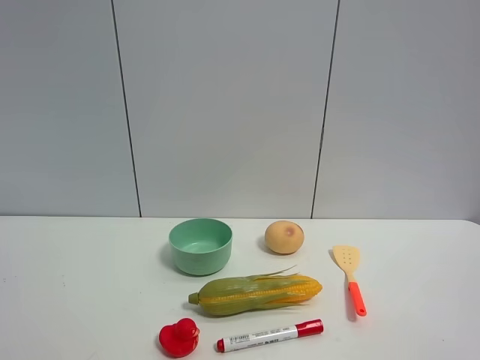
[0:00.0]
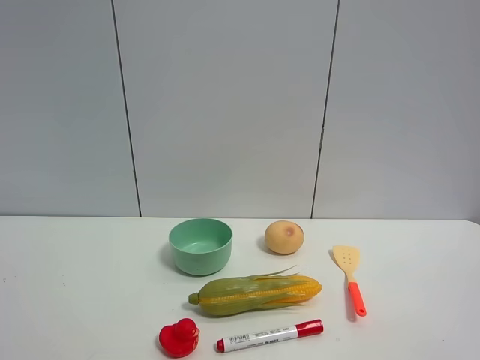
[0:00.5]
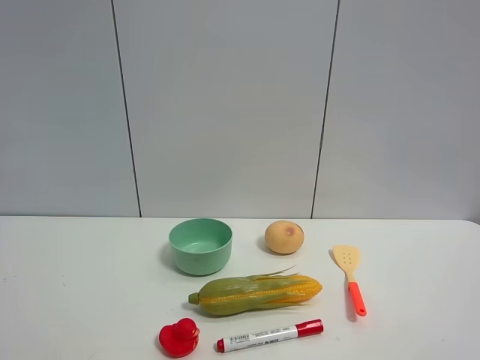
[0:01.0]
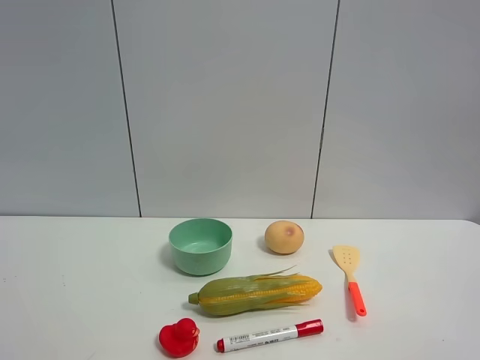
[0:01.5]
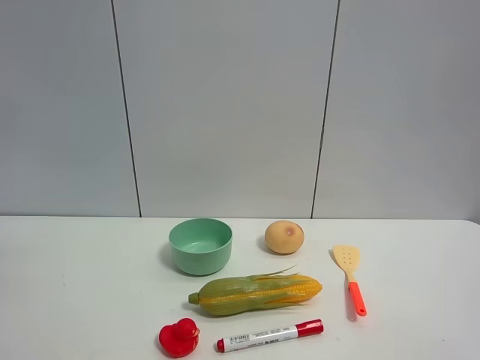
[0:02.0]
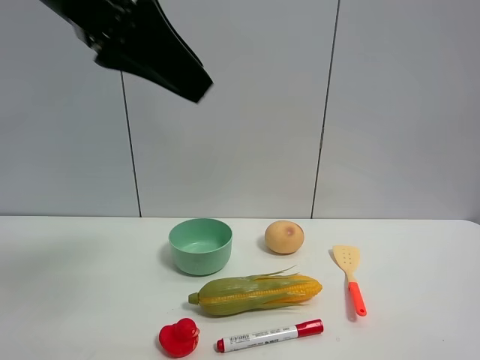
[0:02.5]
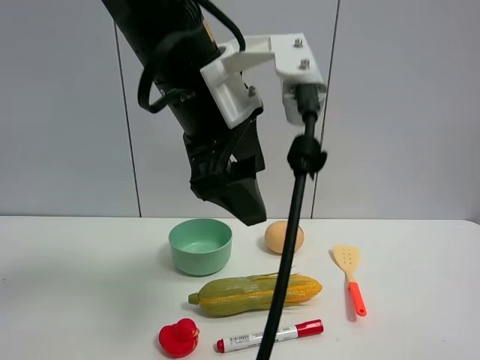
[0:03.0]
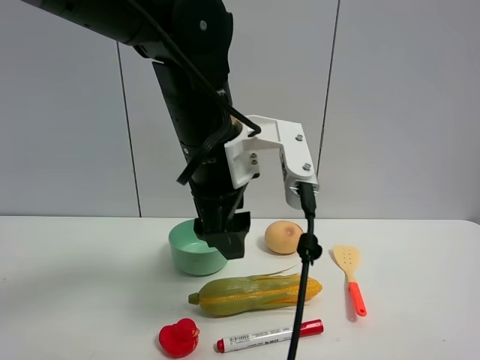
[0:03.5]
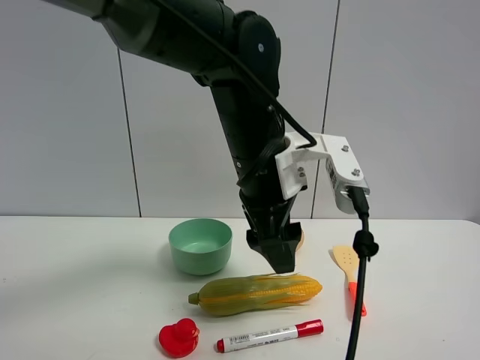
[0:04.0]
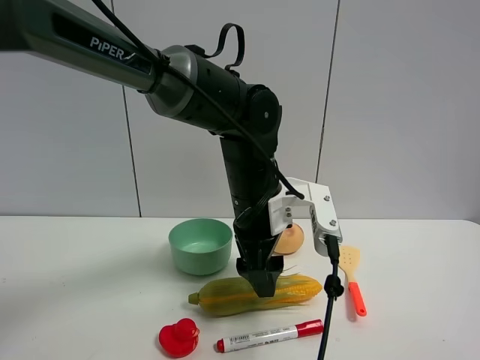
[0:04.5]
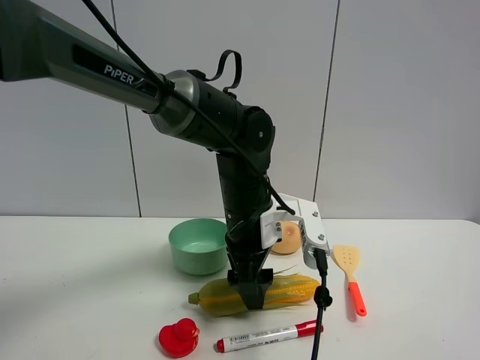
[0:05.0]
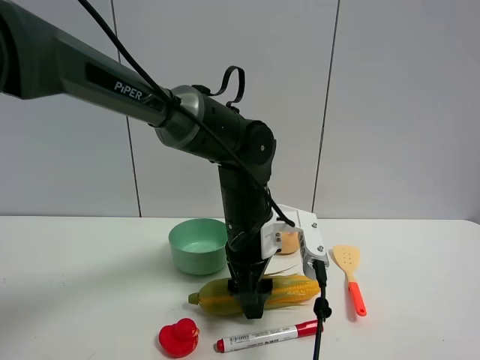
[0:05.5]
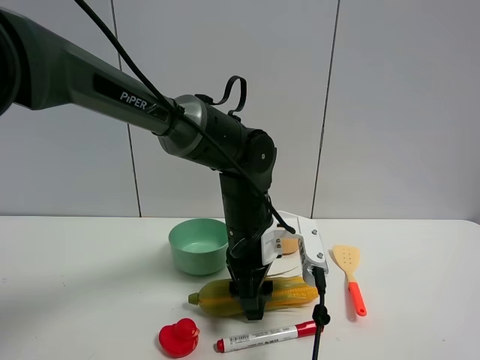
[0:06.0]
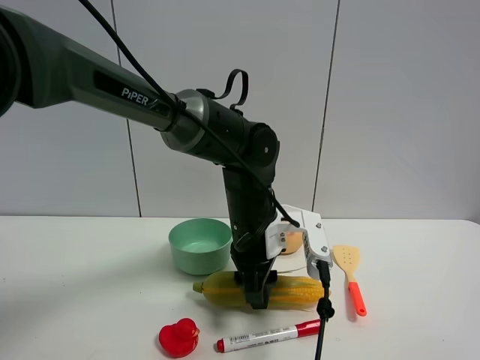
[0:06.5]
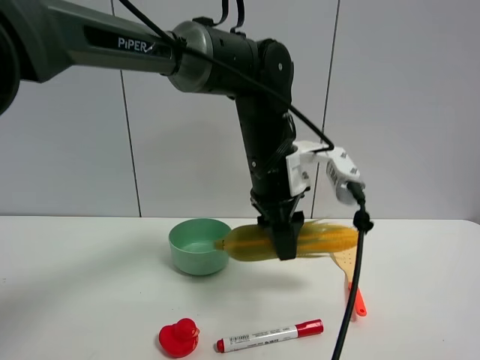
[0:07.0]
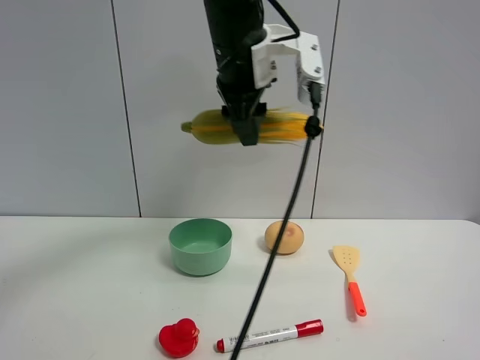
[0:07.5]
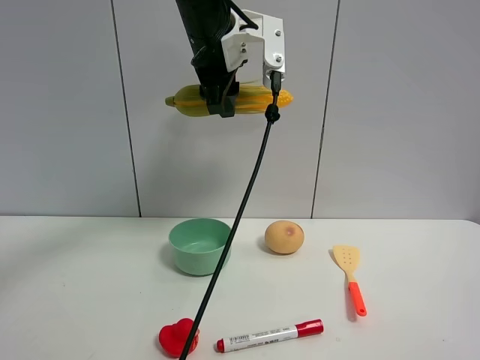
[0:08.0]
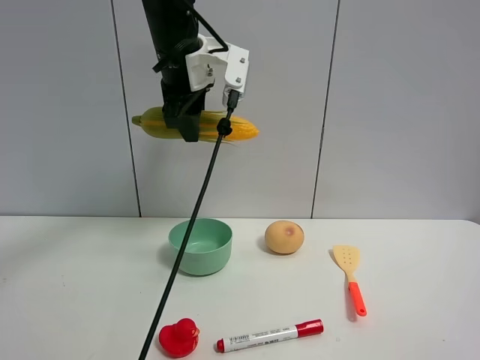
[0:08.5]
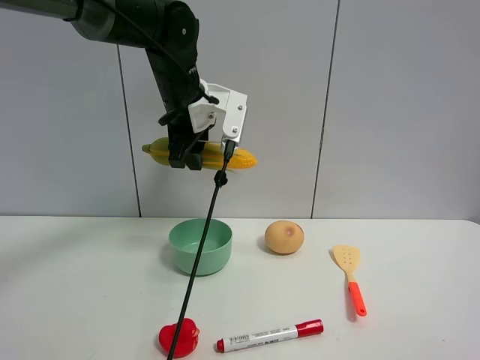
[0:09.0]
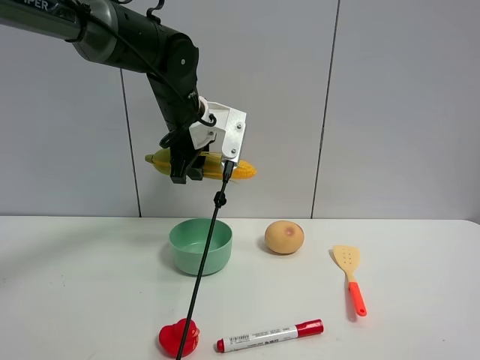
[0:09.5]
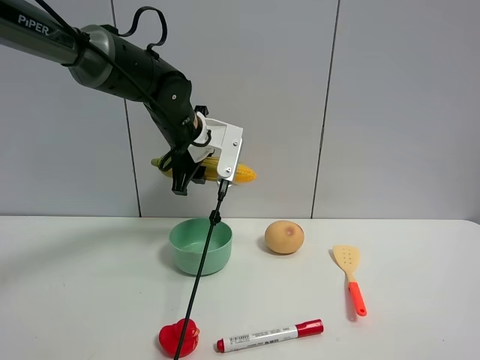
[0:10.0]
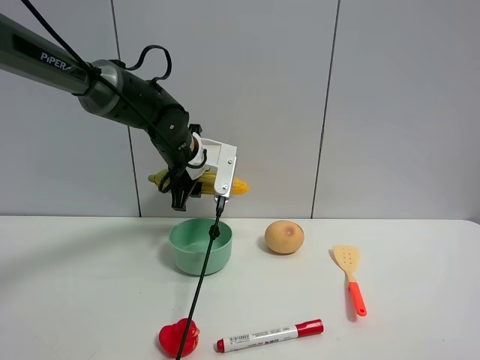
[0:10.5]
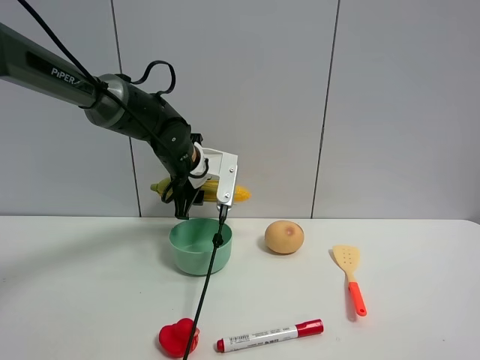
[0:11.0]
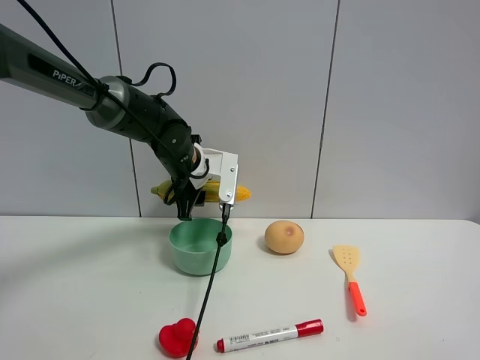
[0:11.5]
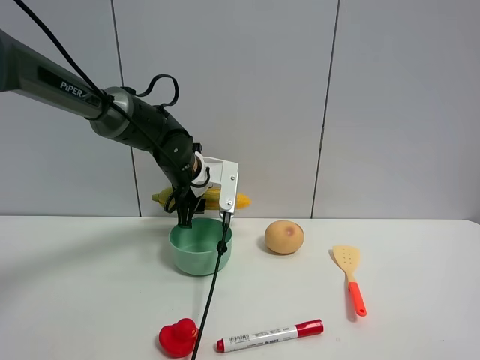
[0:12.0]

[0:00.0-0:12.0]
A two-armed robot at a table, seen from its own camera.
Task of the whole recording: the gripper move the object.
Step, 0:00.0 to 0:06.0: Grasp the corn with the left gripper.
0:02.0 to 0:04.0: The left gripper heads to the right, downward and forward, covering approximately 35 cm.
0:04.0 to 0:06.0: The left gripper goes approximately 10 cm downward.
0:06.0 to 0:08.0: The left gripper shifts approximately 25 cm upward.
0:08.0 to 0:10.0: The left gripper travels downward by some 15 cm.
0:10.0 to 0:12.0: The left gripper goes approximately 5 cm downward.

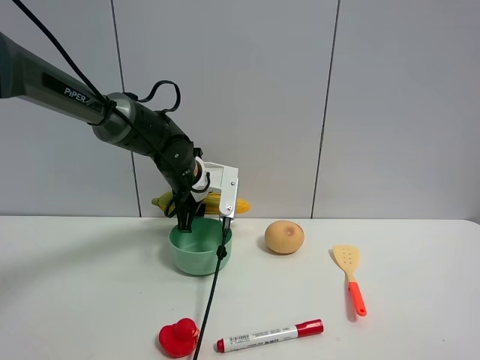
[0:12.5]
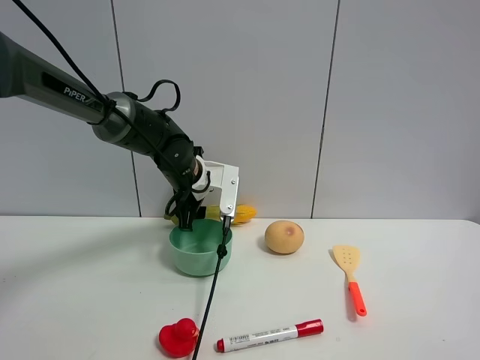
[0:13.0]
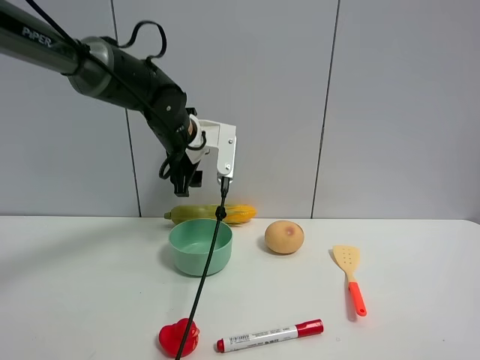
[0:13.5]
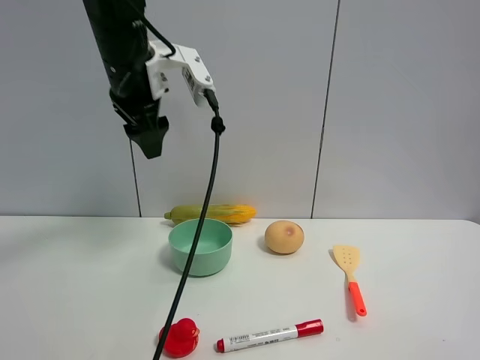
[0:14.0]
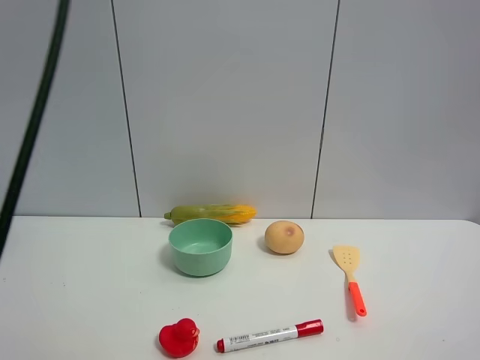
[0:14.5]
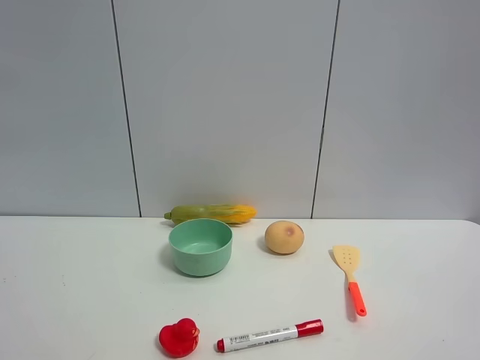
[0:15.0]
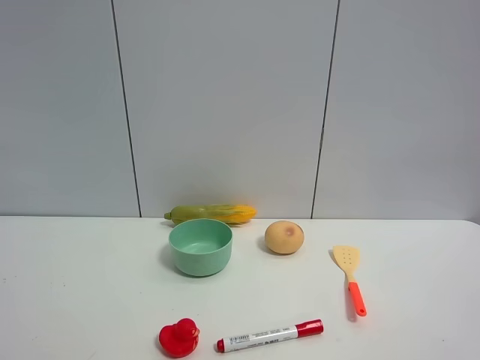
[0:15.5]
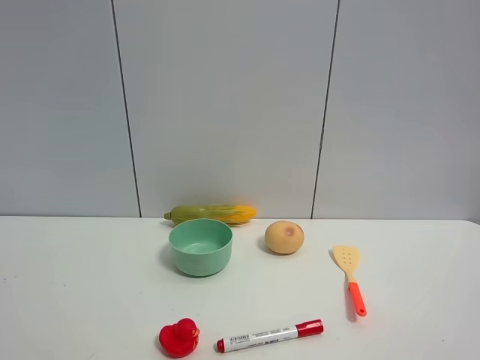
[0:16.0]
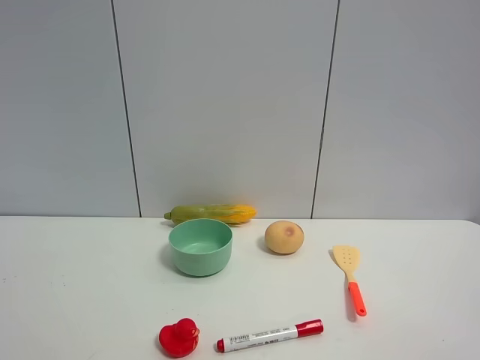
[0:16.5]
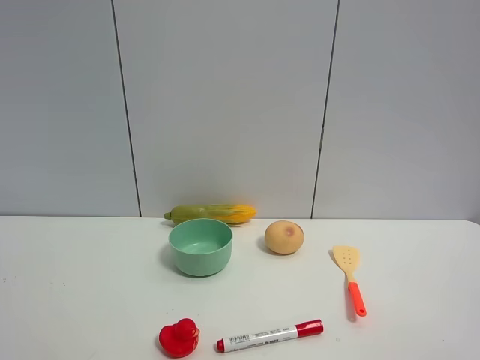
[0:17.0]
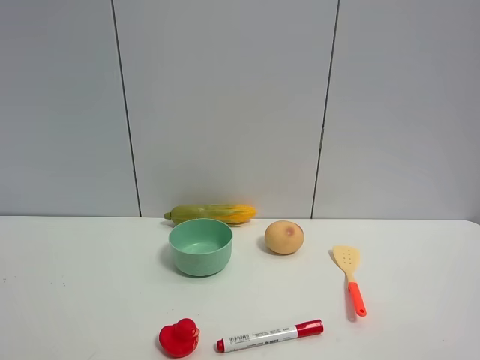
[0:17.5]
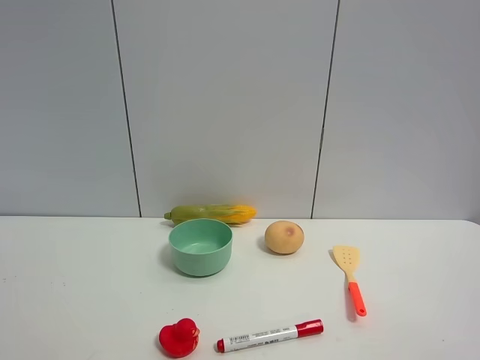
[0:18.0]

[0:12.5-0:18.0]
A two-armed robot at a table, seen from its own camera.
Task of the whole recording: the gripper move the object.
0:12.5 to 0:14.5: The left gripper is displaced upward, backward and to the left by about 50 cm, and opens.
0:14.5 to 0:16.0: The left gripper is displaced backward and downward by some 30 cm.

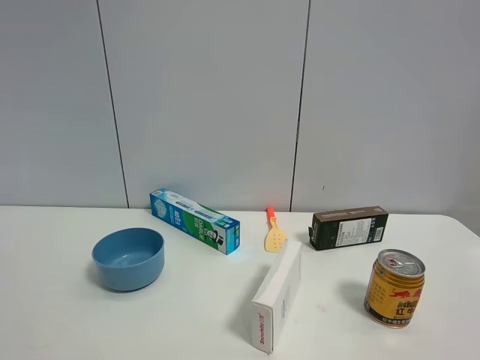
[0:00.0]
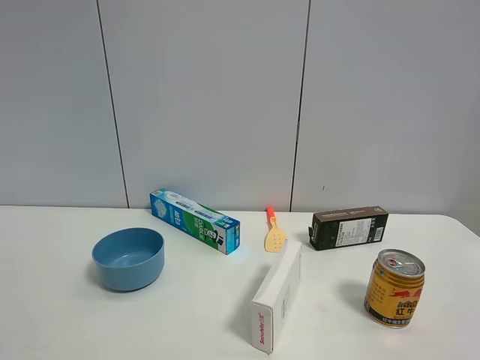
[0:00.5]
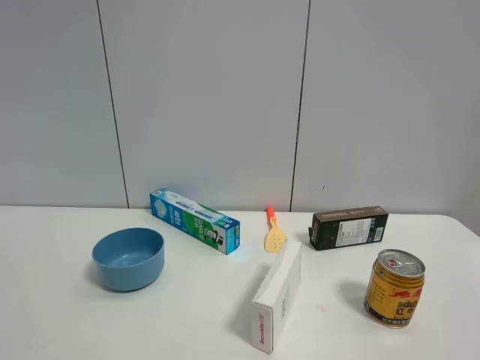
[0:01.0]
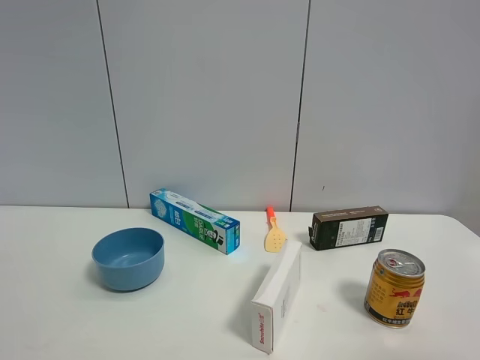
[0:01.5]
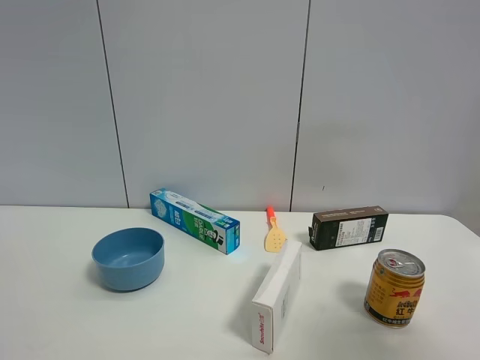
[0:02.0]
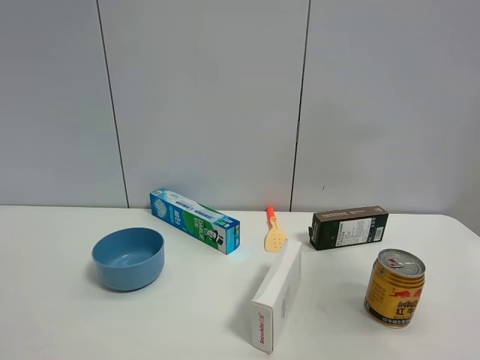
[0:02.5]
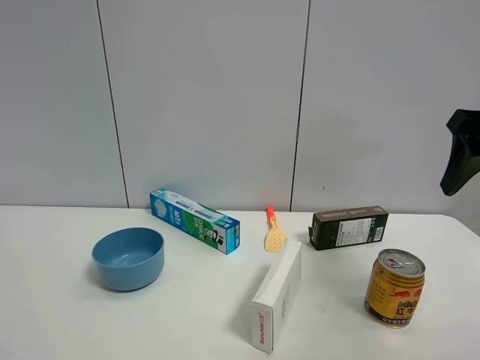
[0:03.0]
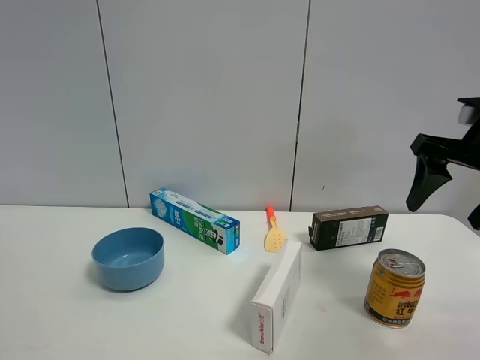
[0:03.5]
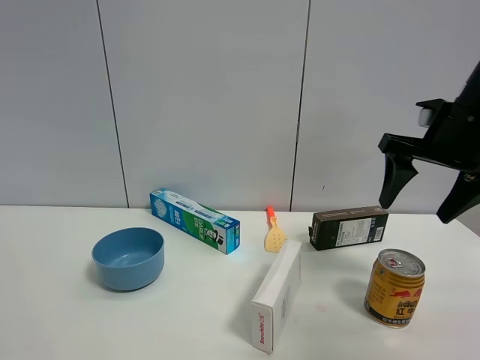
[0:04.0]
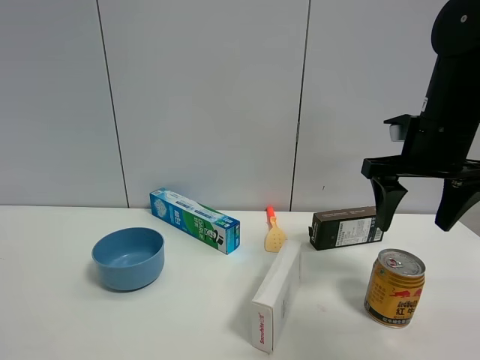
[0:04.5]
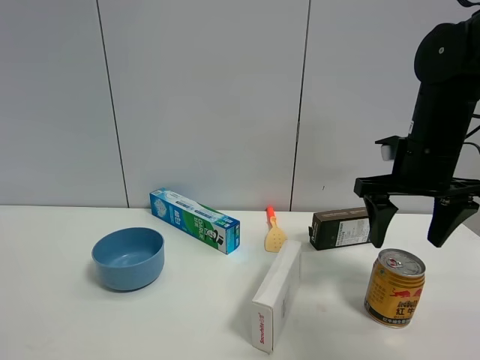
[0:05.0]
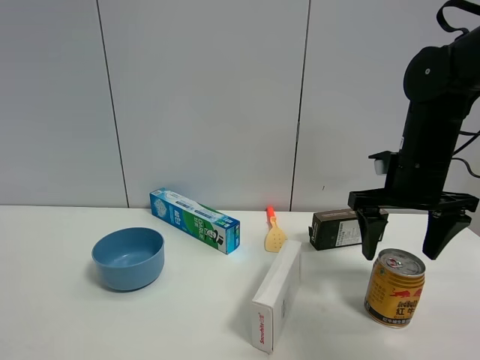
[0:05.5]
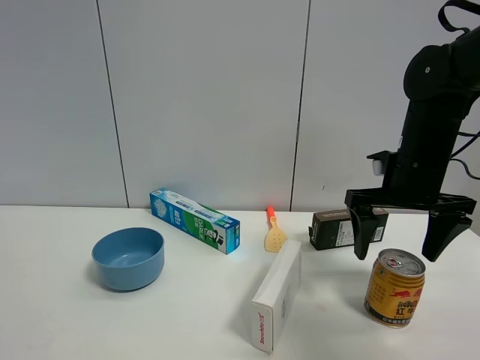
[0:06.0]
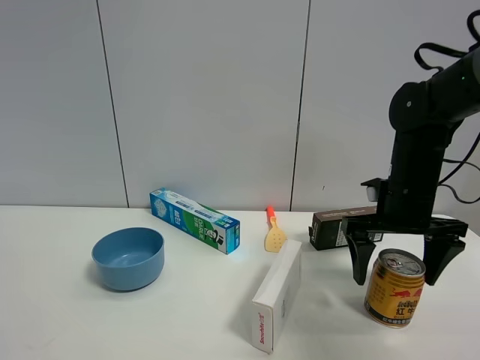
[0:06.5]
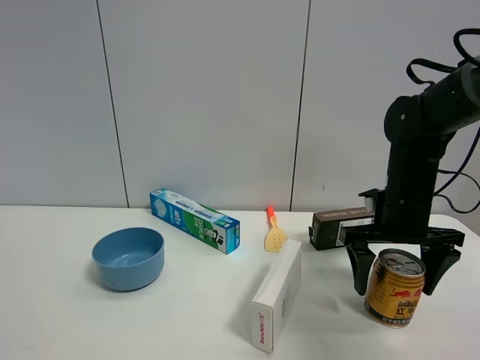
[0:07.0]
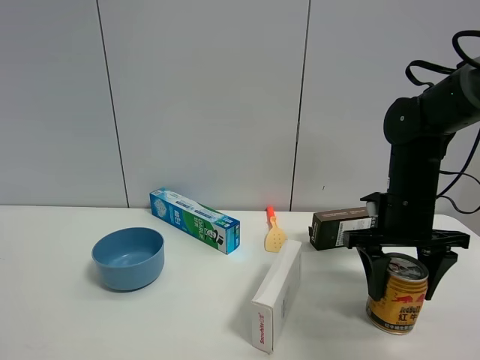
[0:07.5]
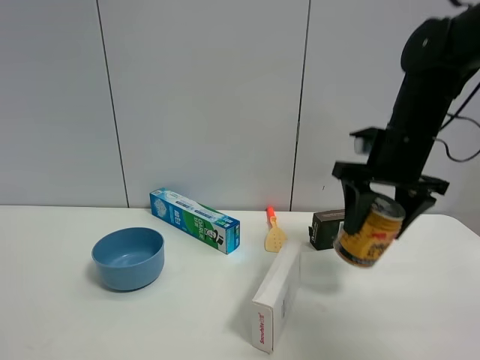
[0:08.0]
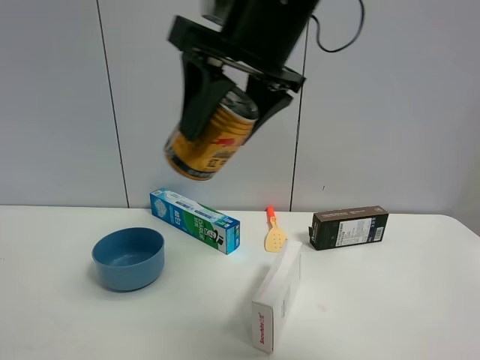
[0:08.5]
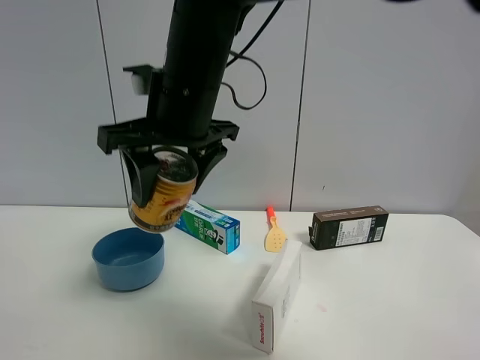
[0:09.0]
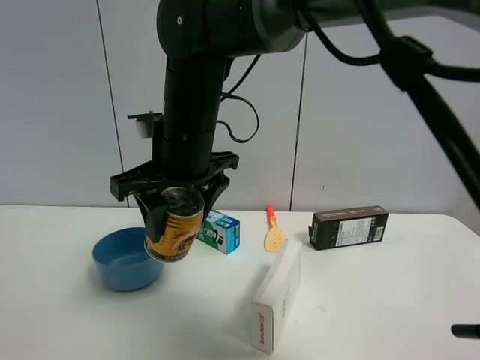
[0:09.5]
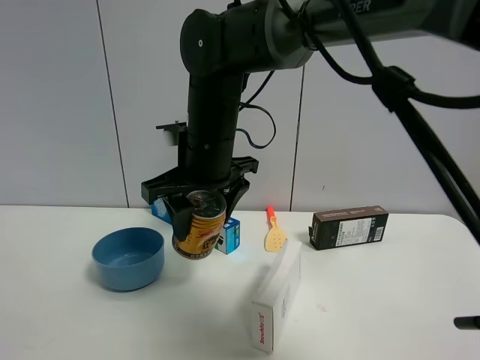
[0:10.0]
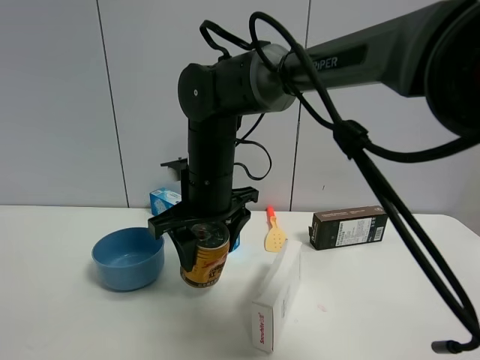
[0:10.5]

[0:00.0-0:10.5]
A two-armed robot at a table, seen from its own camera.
Task of the whole recording: the gripper move the object.
Step, 0:00.0 to 0:07.0: Grasp the red bull with the right gripper.
0:00.0 to 0:02.0: The right gripper goes some 15 cm forward and upward, and closes up.
0:02.0 to 0:04.0: The right gripper shifts some 25 cm forward and downward.
0:04.0 to 0:06.5: The right gripper is displaced downward by some 10 cm, and opens.
0:06.5 to 0:08.5: The right gripper is displaced to the left and upward by some 30 cm, and closes up.
0:08.5 to 0:10.5: The right gripper is displaced downward and forward by some 20 cm.
